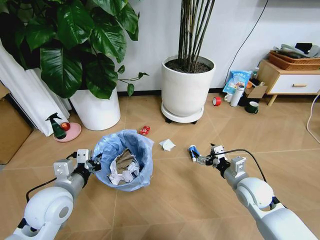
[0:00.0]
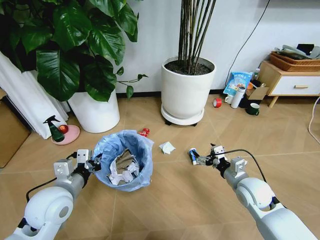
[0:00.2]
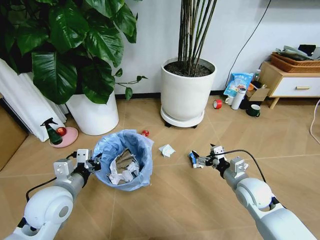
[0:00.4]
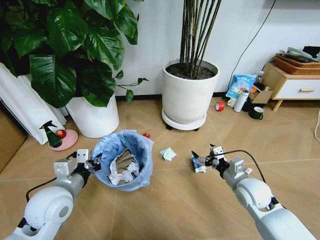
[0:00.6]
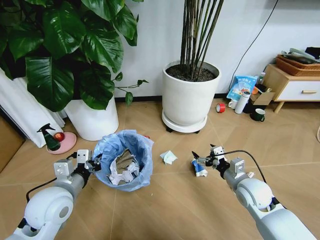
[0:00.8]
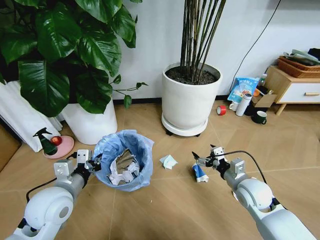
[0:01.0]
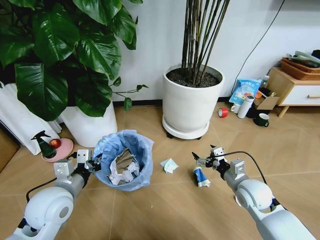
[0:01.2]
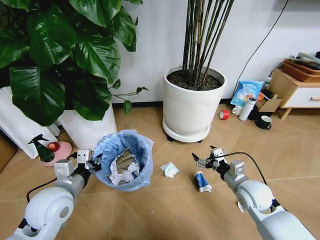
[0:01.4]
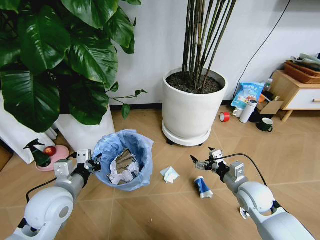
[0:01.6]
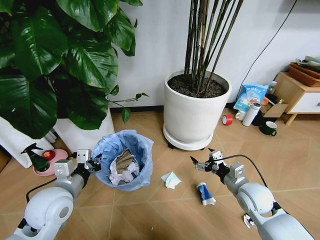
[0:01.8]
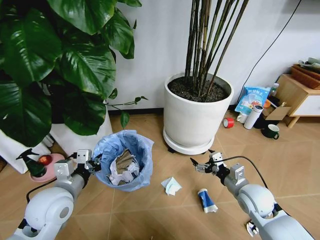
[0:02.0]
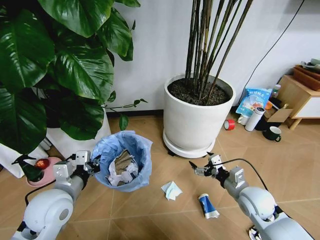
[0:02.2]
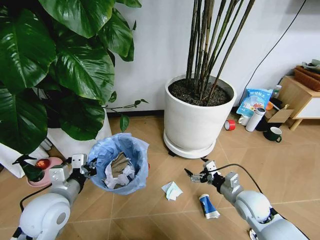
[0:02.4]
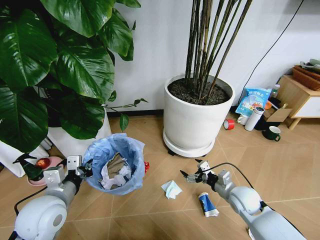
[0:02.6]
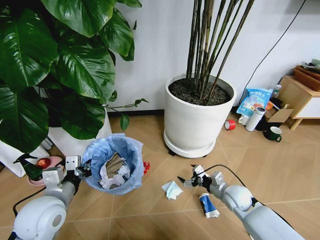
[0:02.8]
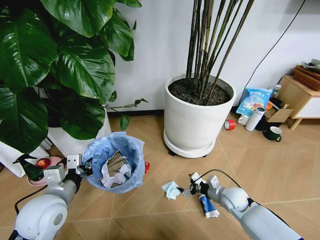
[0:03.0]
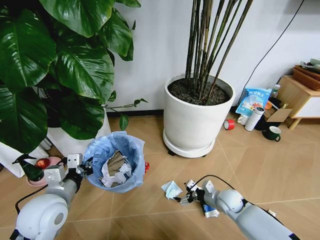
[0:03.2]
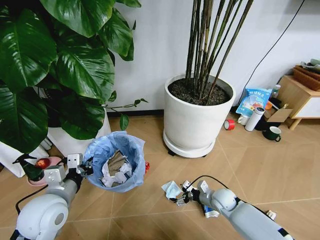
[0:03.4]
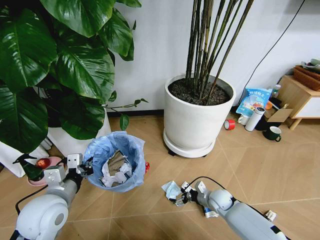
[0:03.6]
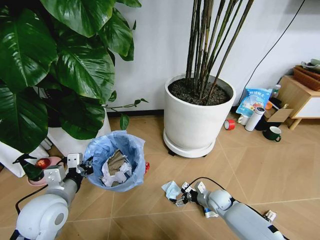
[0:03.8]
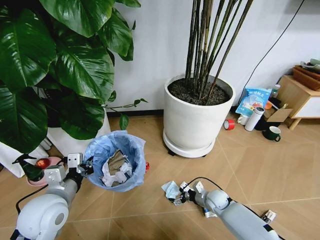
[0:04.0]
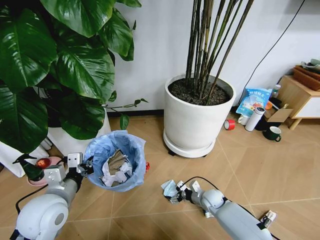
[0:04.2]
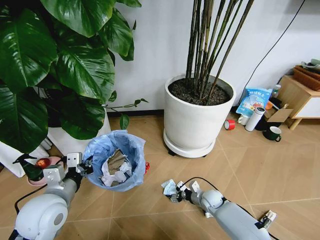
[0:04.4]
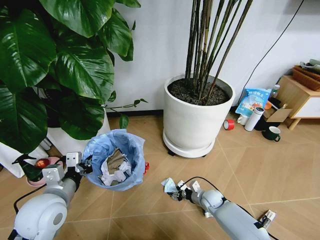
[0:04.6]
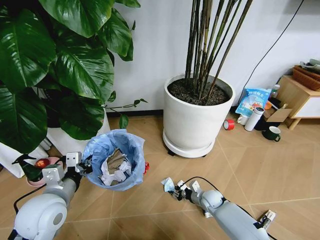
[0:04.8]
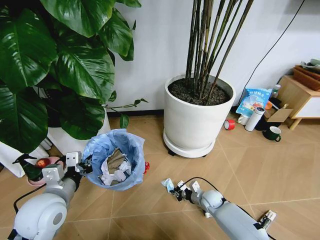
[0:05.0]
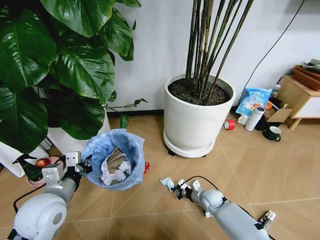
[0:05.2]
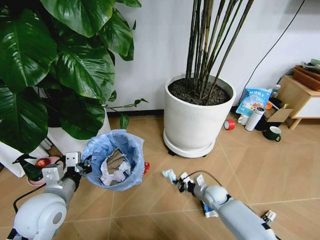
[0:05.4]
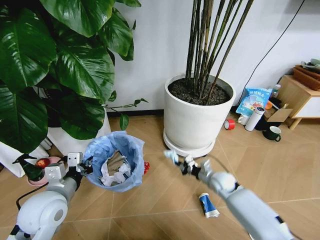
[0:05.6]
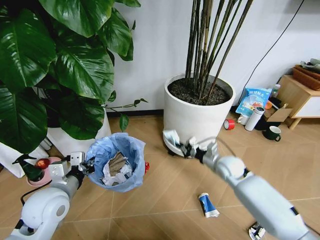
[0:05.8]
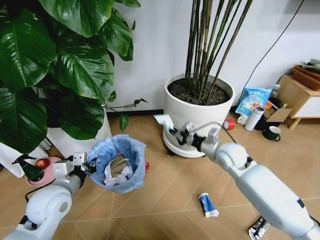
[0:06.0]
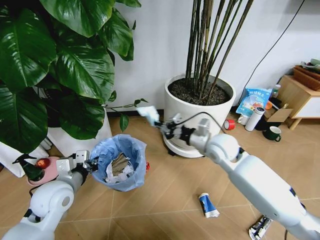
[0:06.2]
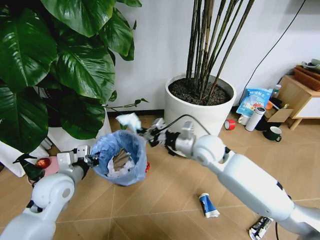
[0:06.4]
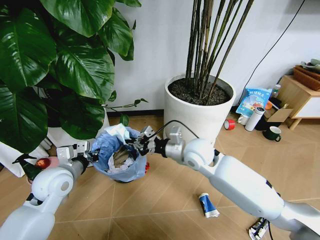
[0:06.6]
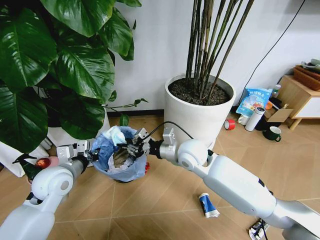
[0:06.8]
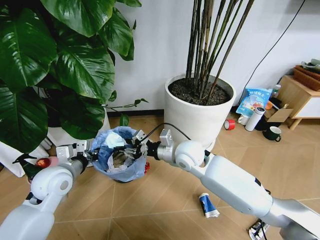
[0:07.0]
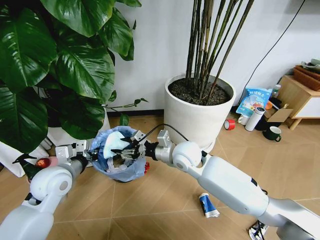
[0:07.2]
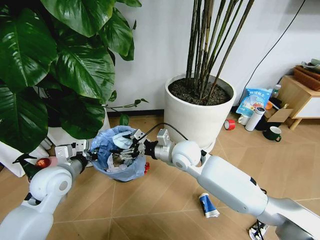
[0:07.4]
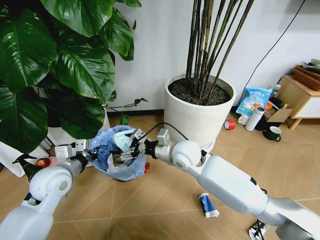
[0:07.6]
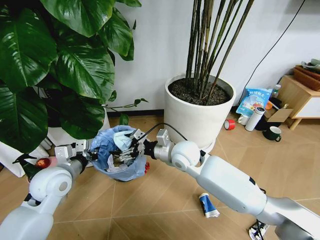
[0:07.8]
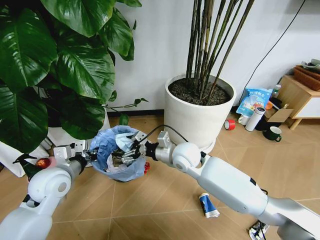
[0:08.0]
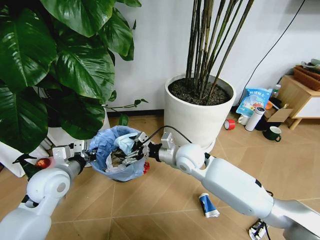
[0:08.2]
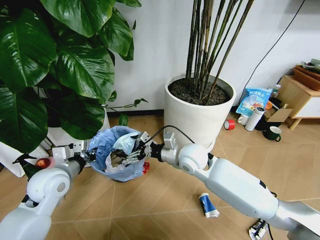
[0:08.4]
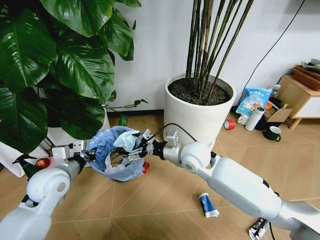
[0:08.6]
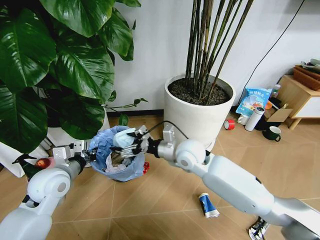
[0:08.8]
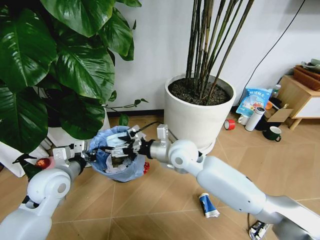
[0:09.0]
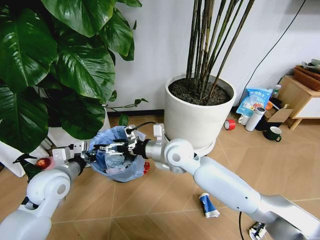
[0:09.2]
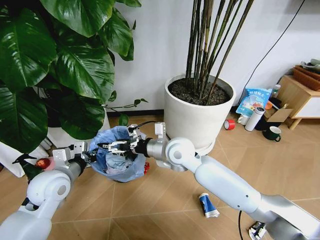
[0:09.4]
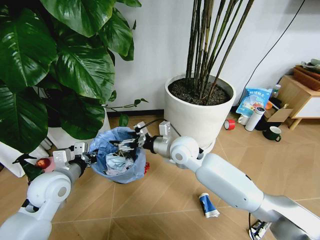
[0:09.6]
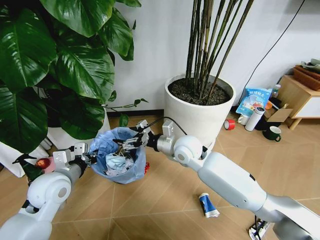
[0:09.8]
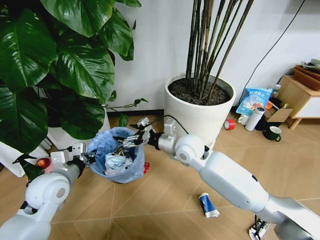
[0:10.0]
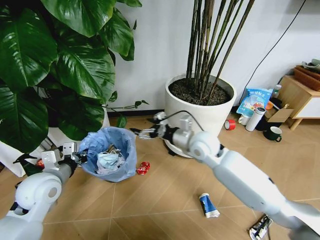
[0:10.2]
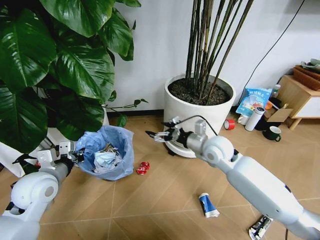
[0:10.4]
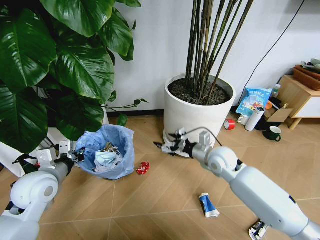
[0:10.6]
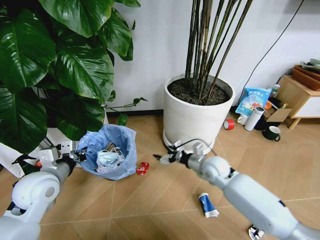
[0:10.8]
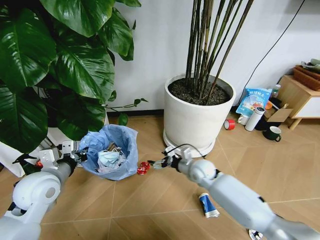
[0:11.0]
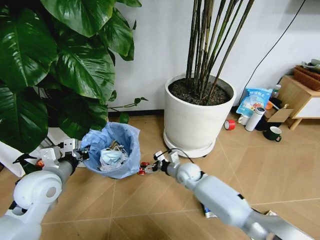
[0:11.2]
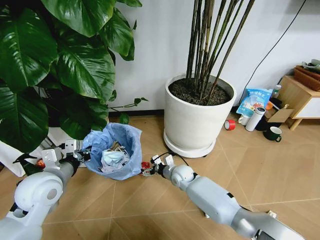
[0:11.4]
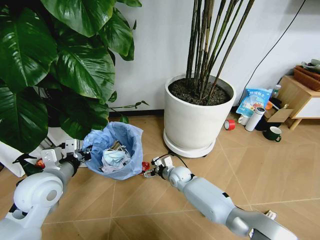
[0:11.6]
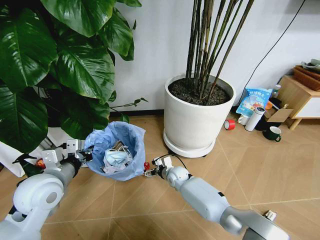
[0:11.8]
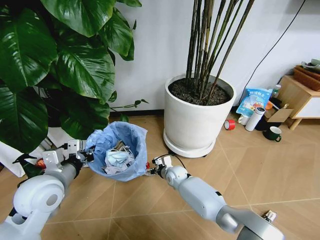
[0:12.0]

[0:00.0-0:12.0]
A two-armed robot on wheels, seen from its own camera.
Task of the whole recording: Pick up the trash bin and place the garbage on the floor into it.
0:01.6 to 0:03.0: The right gripper goes approximately 10 cm downward.
0:03.0 to 0:04.4: The right gripper goes some 10 cm downward and to the left.
0:04.4 to 0:06.0: The right gripper is displaced upward by roughly 25 cm, and closes up.
0:06.0 to 0:07.6: The left gripper moves forward, about 5 cm. Meanwhile the right gripper shifts roughly 15 cm to the left, and opens its fingers.
0:09.0 to 0:10.4: The right gripper moves to the right, approximately 10 cm.
0:10.4 to 0:12.0: The left gripper changes place by roughly 5 cm, while the right gripper travels downward and to the left by some 25 cm.

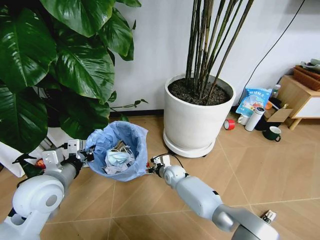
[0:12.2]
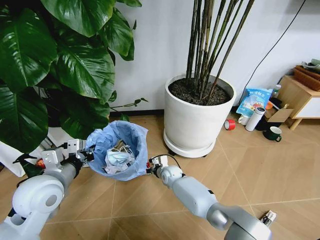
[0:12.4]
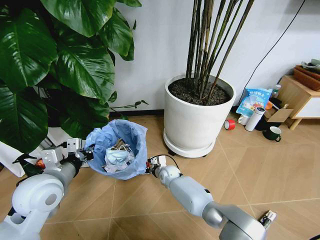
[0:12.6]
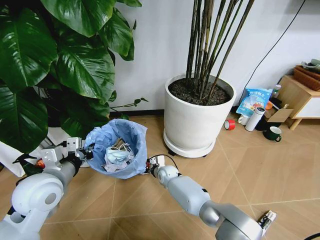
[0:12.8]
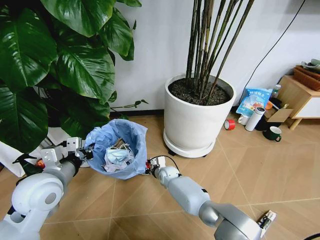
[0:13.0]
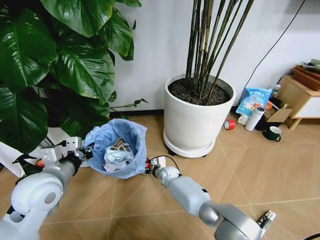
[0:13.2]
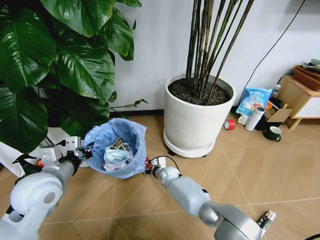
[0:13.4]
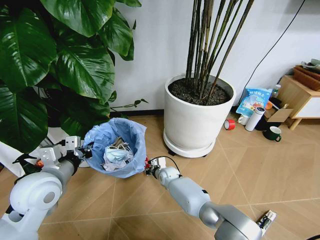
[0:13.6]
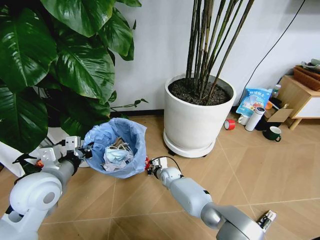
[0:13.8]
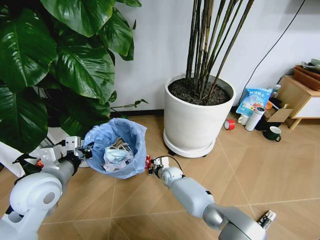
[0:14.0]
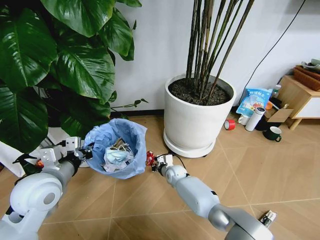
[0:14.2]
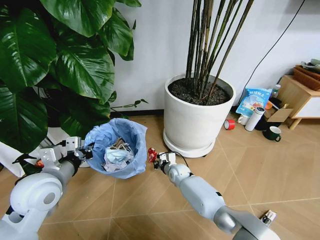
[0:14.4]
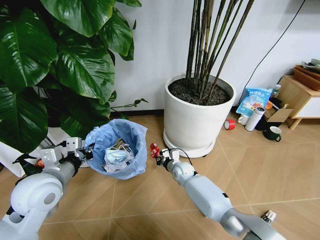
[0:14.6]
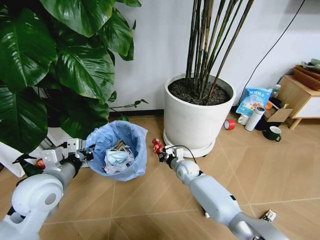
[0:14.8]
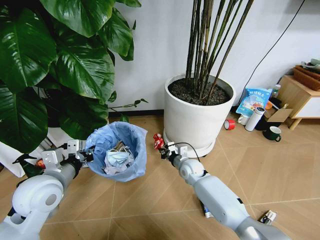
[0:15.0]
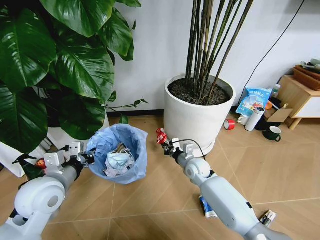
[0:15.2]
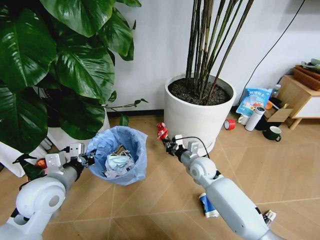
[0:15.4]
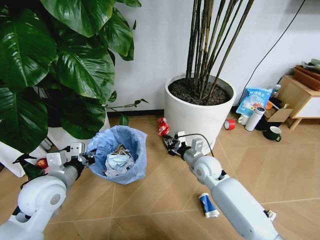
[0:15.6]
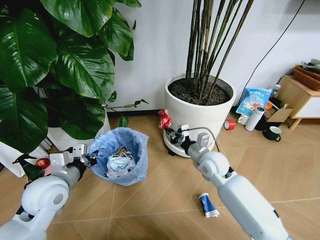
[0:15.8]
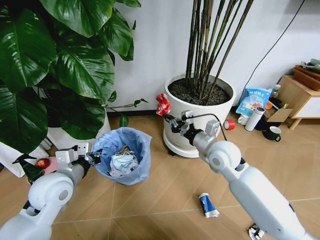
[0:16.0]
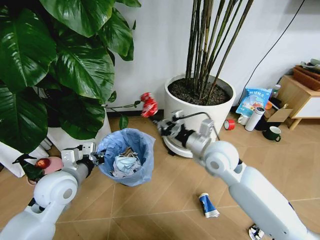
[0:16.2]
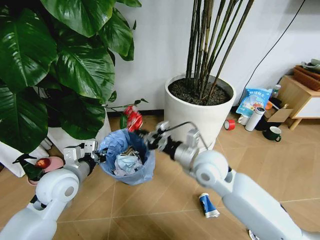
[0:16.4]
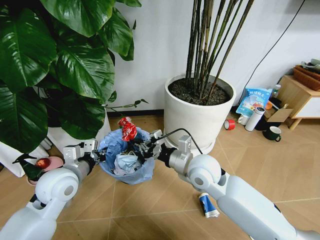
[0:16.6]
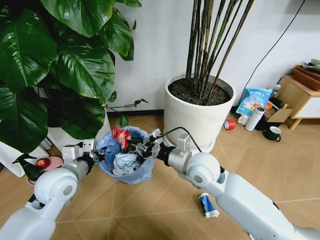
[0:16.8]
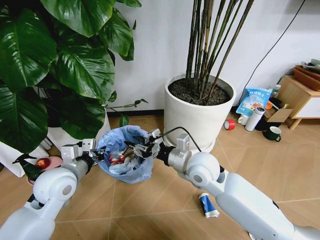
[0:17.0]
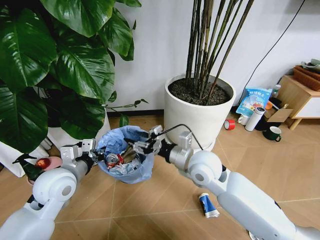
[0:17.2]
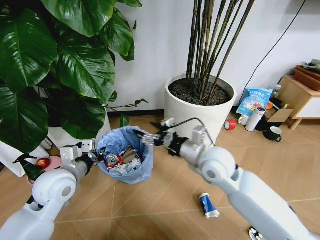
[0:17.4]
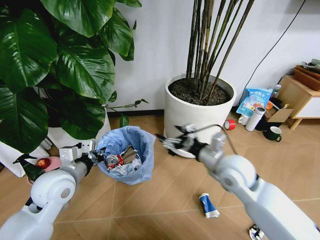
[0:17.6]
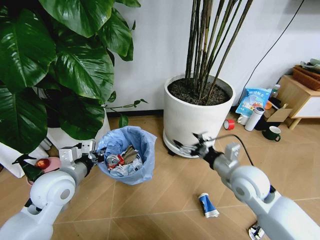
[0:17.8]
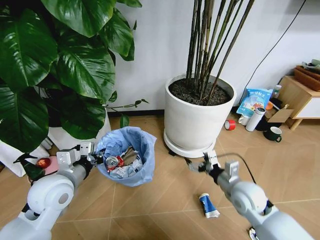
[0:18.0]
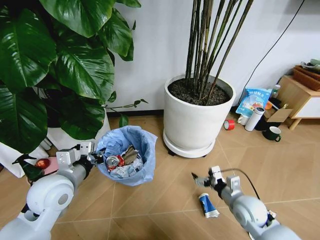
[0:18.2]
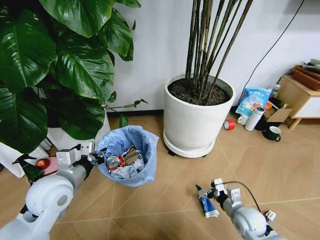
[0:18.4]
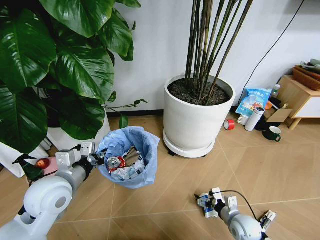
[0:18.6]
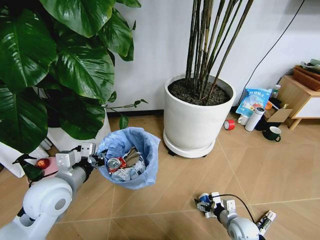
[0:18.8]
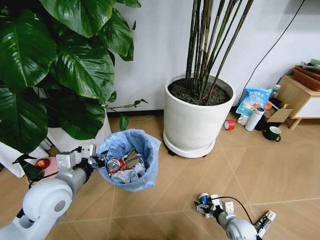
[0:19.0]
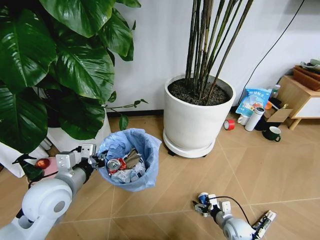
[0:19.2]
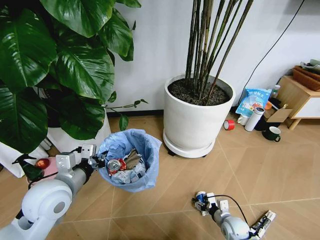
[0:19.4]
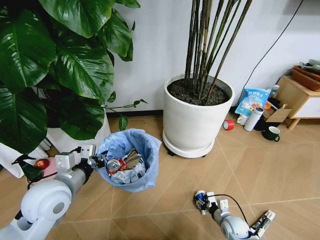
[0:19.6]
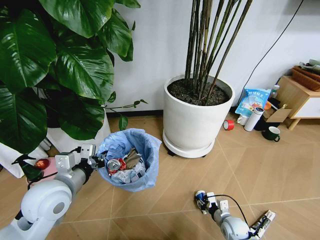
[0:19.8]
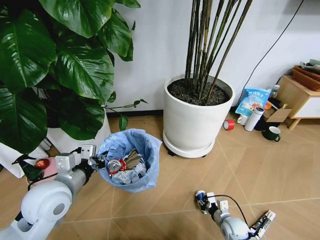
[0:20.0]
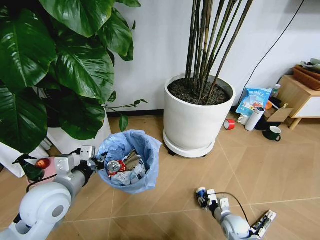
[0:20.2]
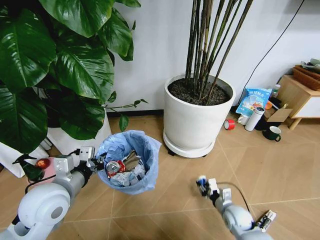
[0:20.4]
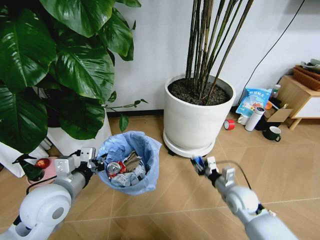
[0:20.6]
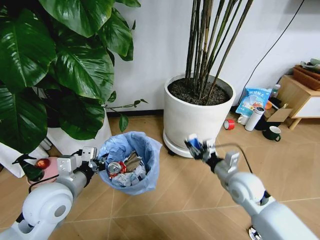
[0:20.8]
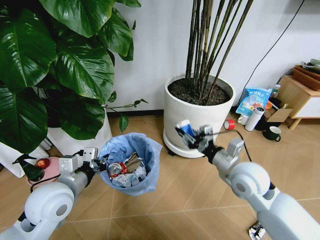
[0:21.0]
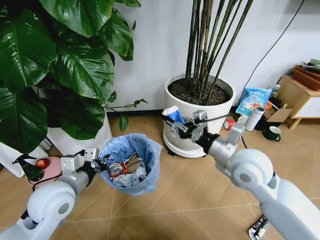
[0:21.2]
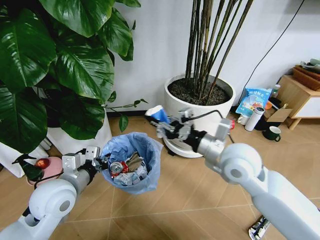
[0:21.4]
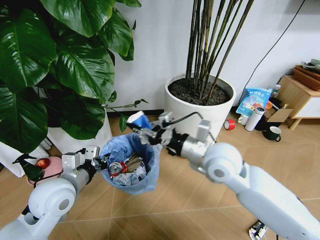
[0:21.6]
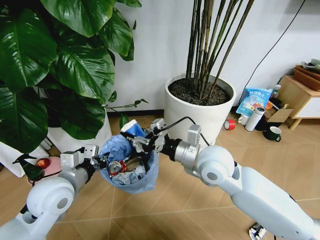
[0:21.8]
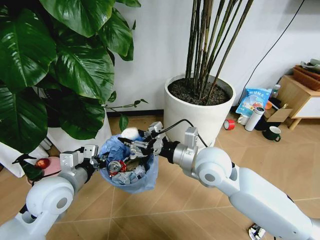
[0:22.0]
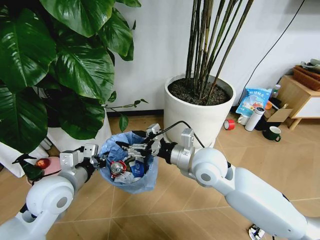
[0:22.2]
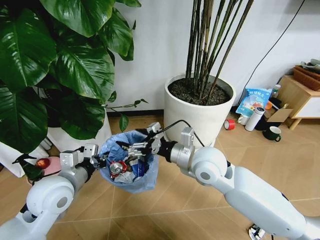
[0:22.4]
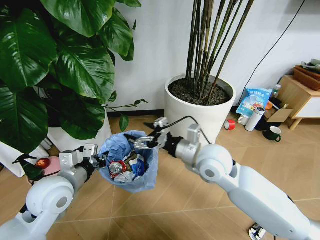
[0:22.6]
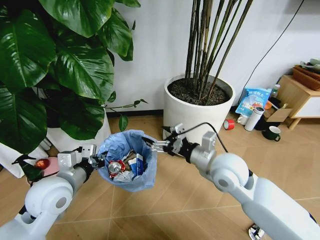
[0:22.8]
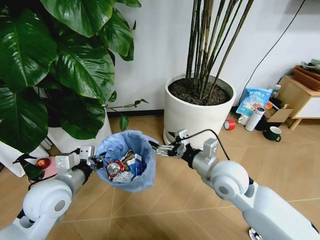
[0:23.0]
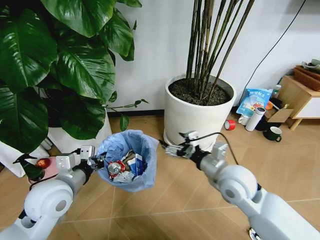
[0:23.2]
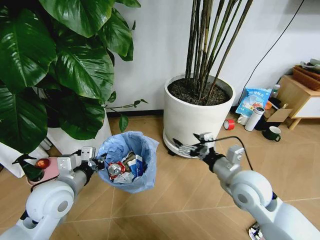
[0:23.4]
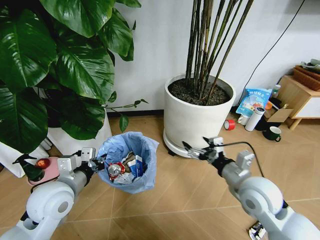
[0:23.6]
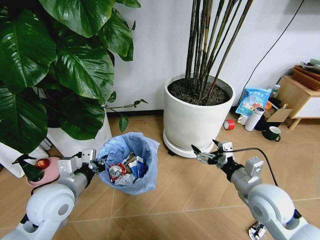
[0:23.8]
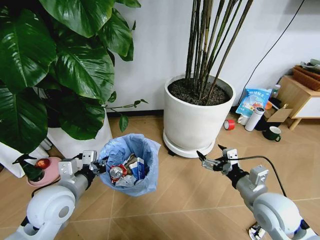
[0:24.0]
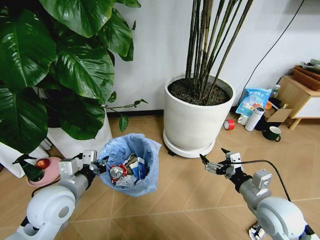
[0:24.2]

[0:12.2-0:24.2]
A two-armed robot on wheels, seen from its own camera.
Task of the whole recording: Pick up the trash bin and place the garbage on the floor into it.
0:12.2 to 0:13.8: The right gripper closes its fingers.
0:13.8 to 0:15.2: The right gripper travels upward and to the right by roughly 15 cm.
0:15.2 to 0:16.6: The right gripper shifts roughly 20 cm upward and backward.
0:16.6 to 0:18.2: The right gripper is displaced to the right and downward by roughly 25 cm, and opens its fingers.
0:18.2 to 0:19.8: The right gripper is displaced downward by some 15 cm, and closes up.
0:19.8 to 0:21.2: The right gripper is displaced upward by about 35 cm.
0:21.2 to 0:22.6: The right gripper heads to the left, covering approximately 10 cm, and opens.
0:22.6 to 0:24.2: The right gripper is displaced to the right, backward and downward by about 20 cm.
